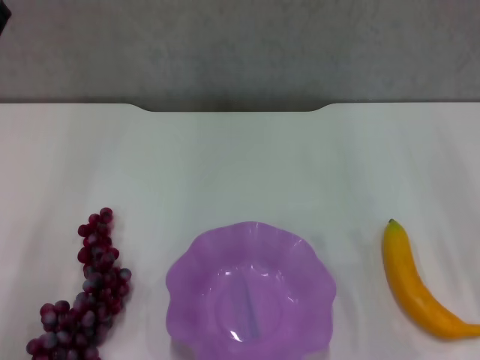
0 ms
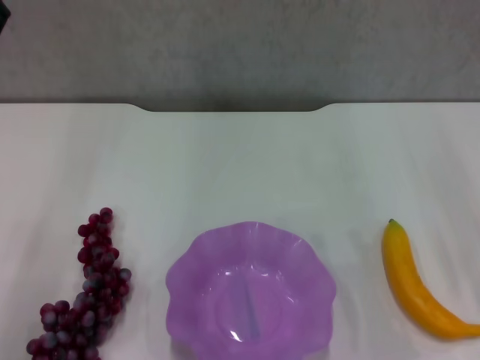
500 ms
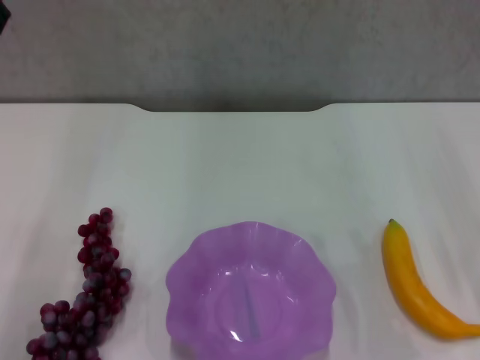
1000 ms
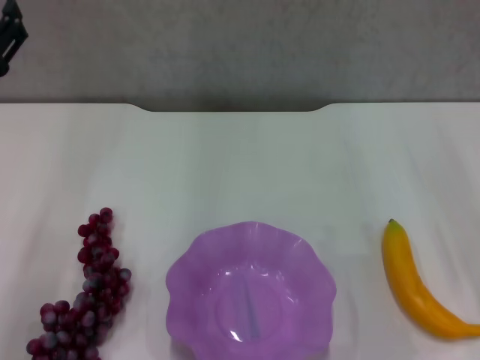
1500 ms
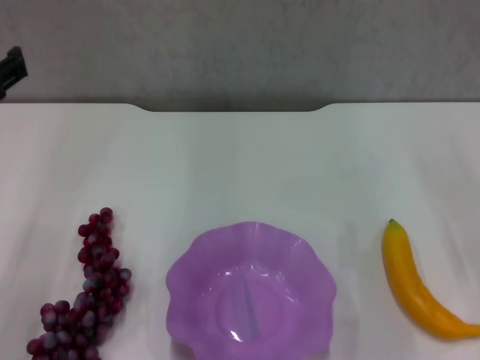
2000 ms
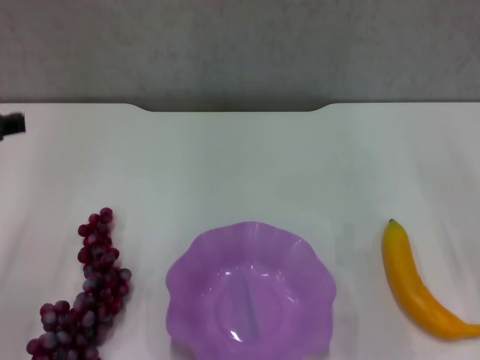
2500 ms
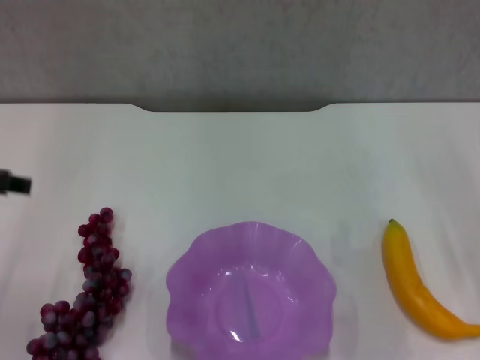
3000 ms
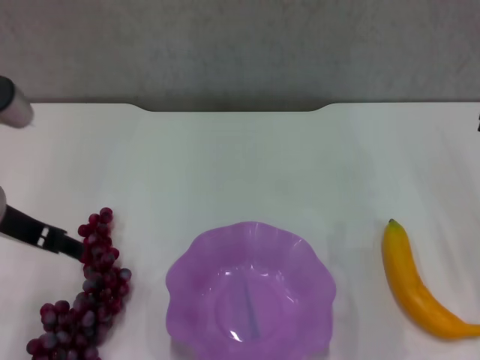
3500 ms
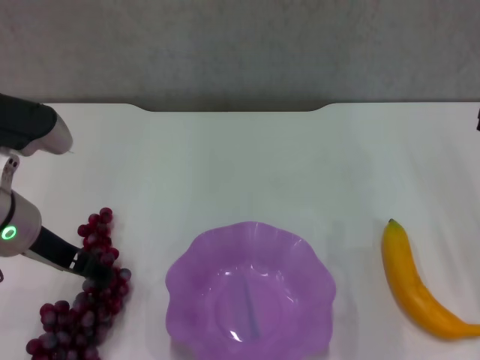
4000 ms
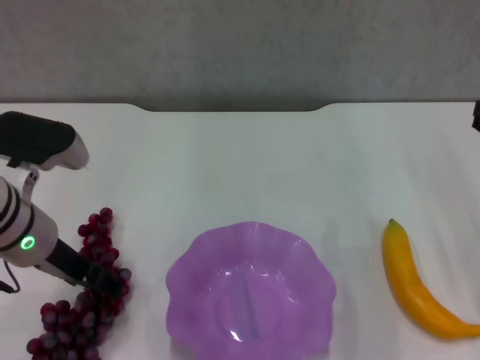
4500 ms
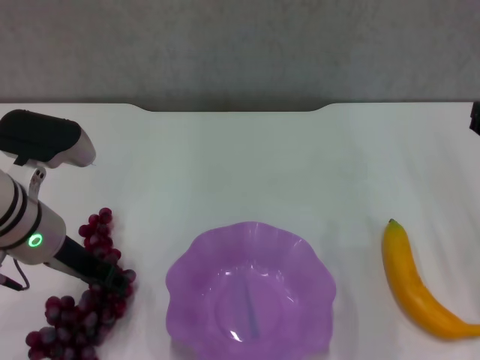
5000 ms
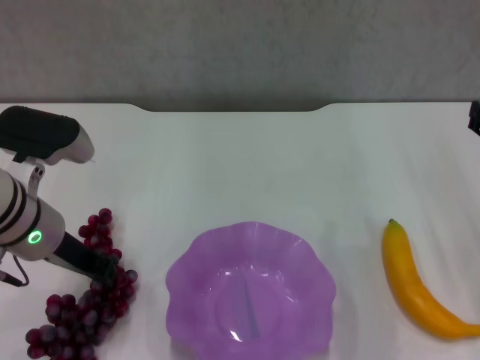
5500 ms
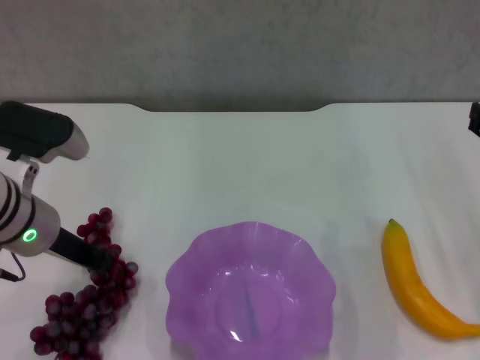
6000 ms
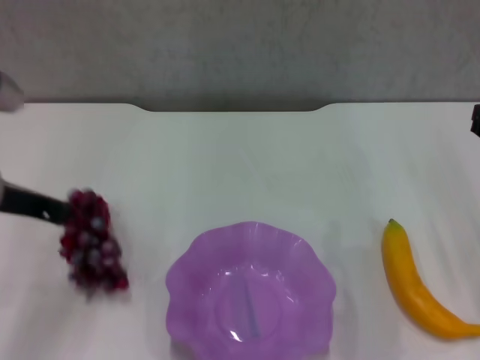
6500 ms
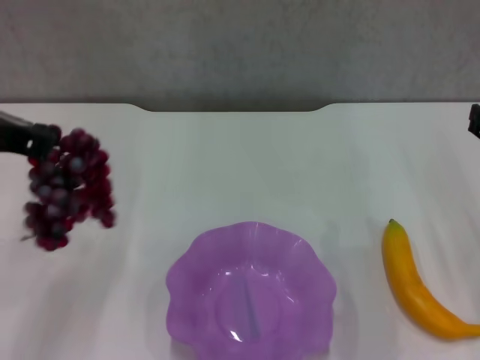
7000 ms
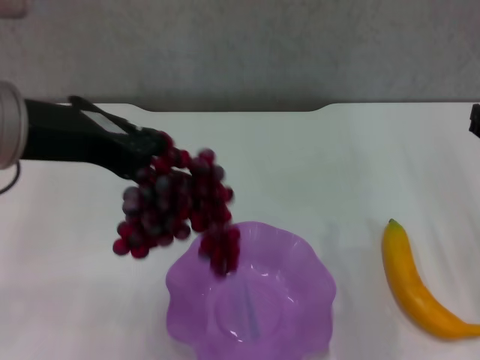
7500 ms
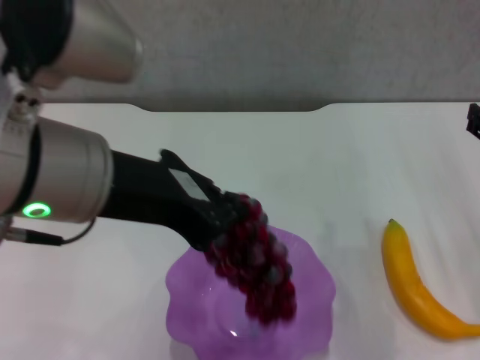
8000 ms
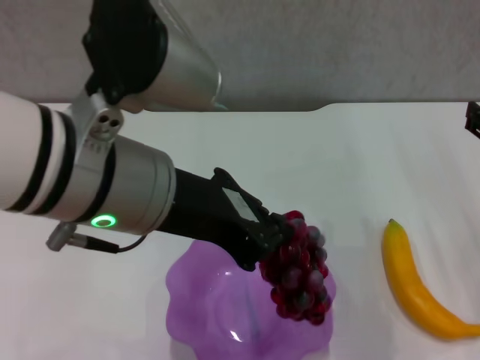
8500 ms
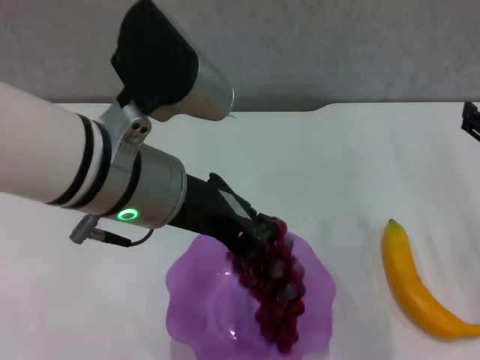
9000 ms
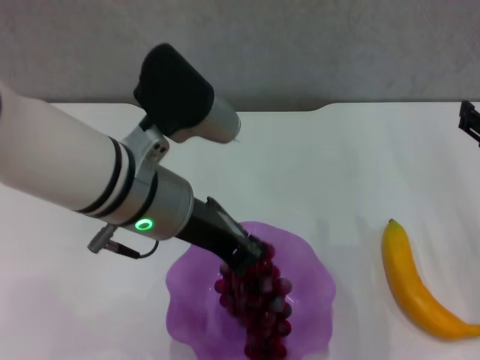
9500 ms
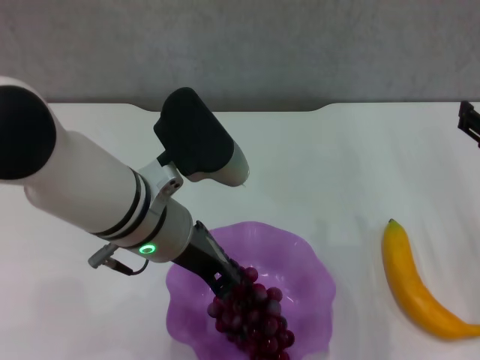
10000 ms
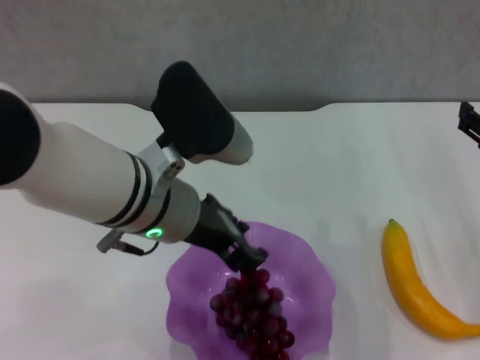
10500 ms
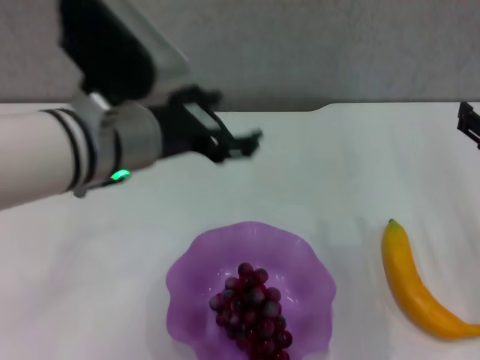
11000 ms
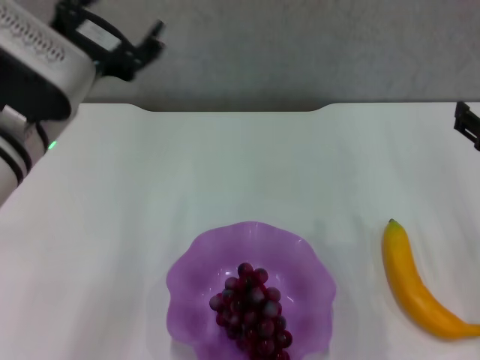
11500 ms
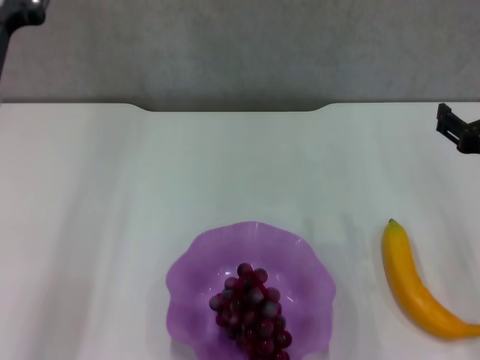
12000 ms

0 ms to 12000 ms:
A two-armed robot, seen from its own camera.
Step, 1500 ms to 5500 ms: Grasp the grape with left gripper.
Step, 6000 ms to 10500 ms: Place the grape in the purple plate with left gripper.
2000 ms to 4000 ms: The left gripper shifts roughly 5 cm downward.
4000 ms to 6000 ms: The left gripper closes up.
6000 ms to 8000 ms: The left gripper shifts approximately 20 cm upward, backward and to the right.
8000 ms to 10000 ms: The left gripper travels downward and forward by approximately 15 cm.
10000 ms to 12000 ms: The left gripper travels to the left by roughly 10 cm, and opens its fingers.

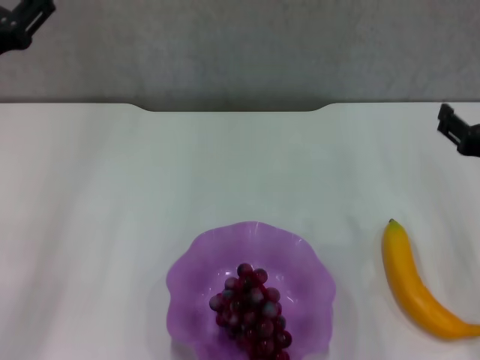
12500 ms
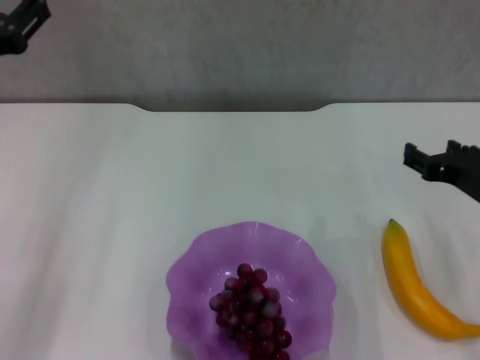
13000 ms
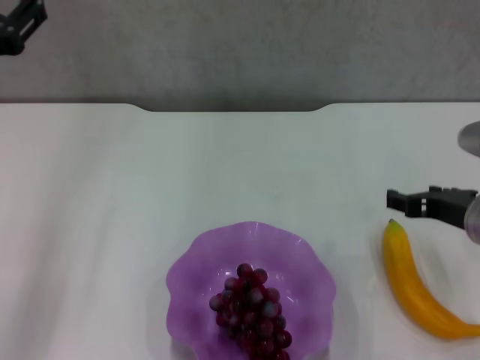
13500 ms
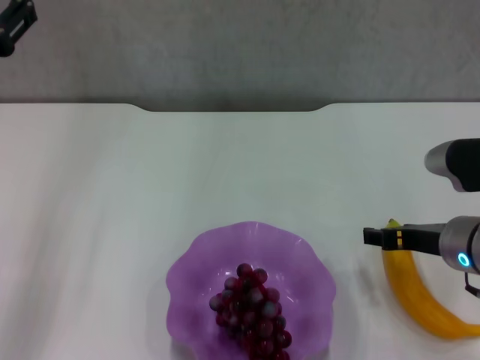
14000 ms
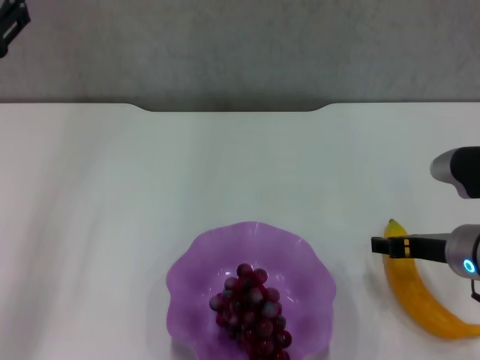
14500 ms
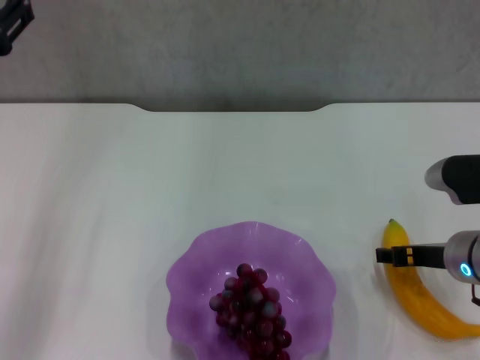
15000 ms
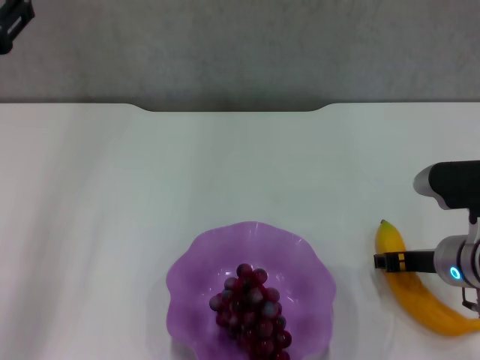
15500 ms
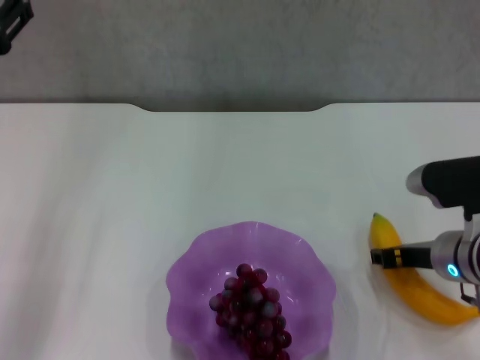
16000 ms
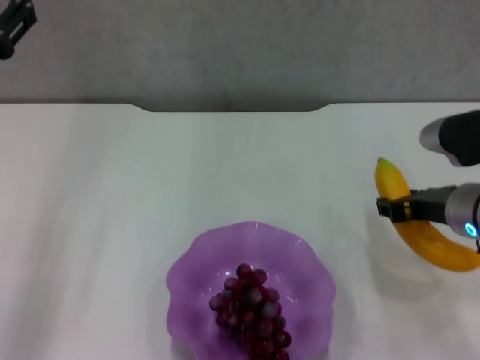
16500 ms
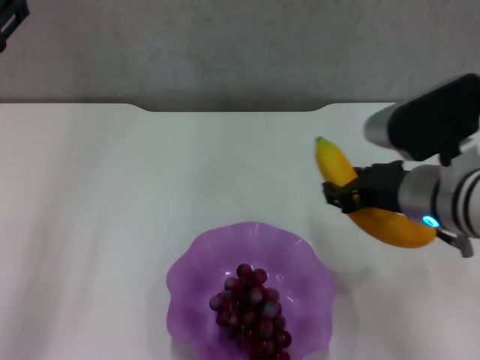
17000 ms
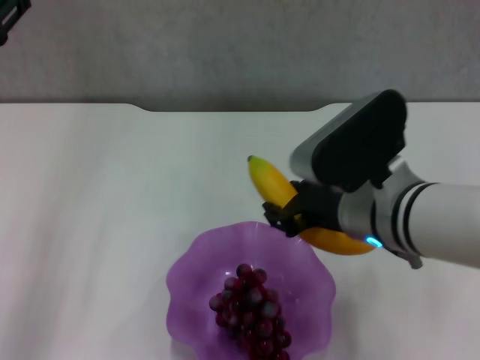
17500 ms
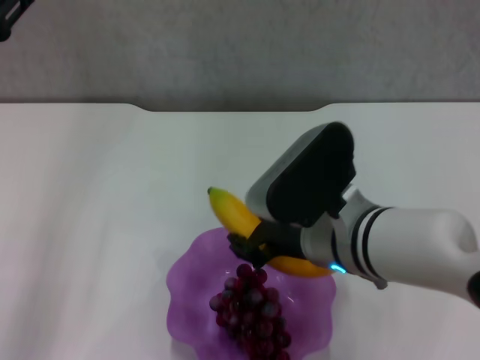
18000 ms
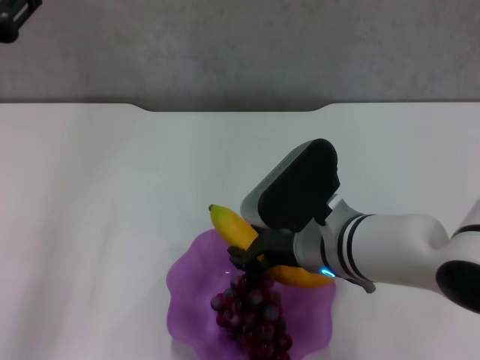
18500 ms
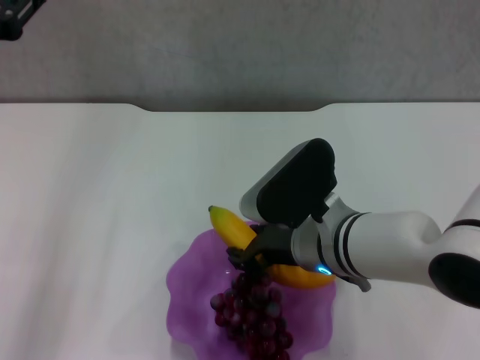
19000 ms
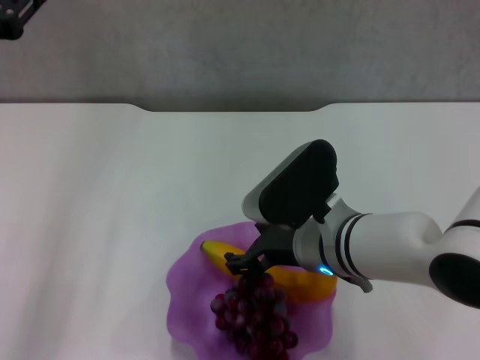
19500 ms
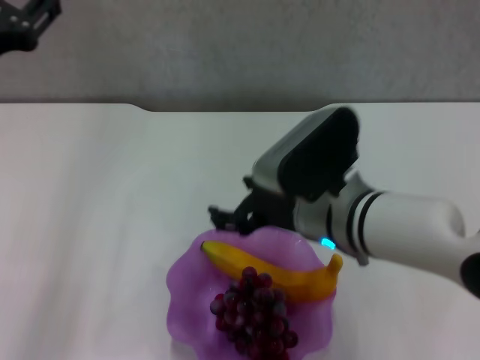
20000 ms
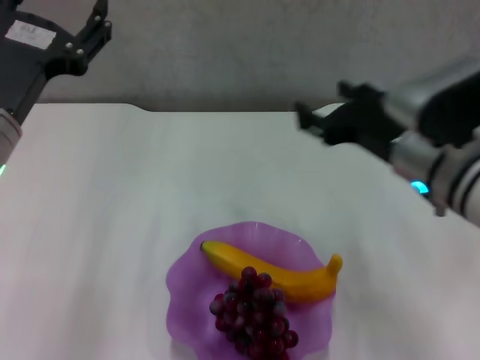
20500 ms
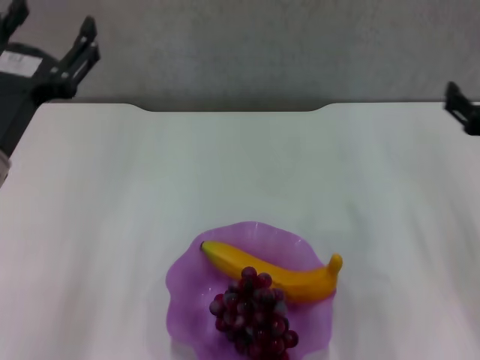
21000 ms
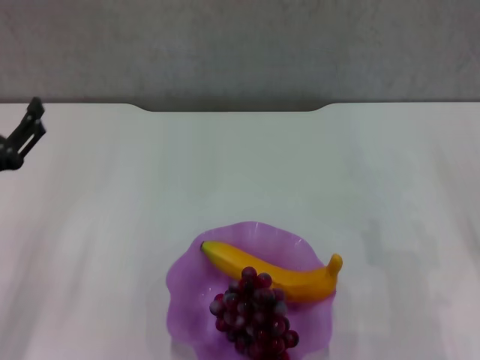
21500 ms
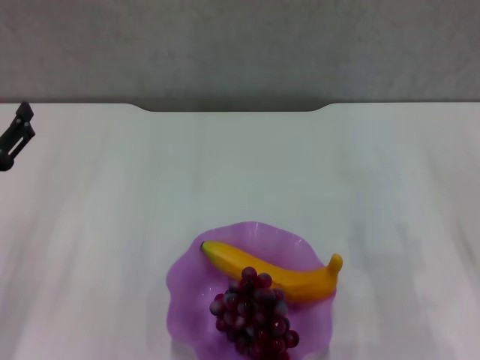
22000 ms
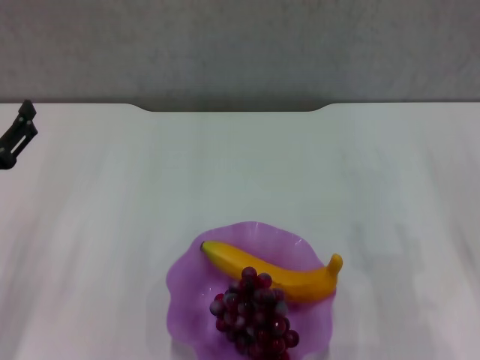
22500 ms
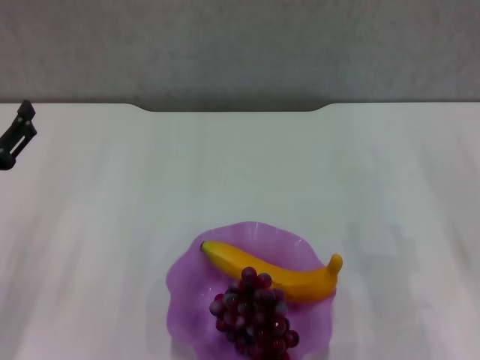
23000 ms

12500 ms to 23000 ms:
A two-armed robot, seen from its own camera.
Step, 12500 ms to 15500 ms: Grasp the banana with right gripper.
Step, 16000 ms to 19500 ms: Place the banana in the purple plate with right gripper.
12500 ms to 14500 ms: The right gripper changes place by about 5 cm.
14500 ms to 16500 ms: The right gripper closes its fingers.
16500 ms to 19000 ms: The right gripper shifts roughly 15 cm to the left.
19000 ms to 21000 ms: The left gripper is displaced downward by about 5 cm. The right gripper moves to the right, roughly 20 cm, and opens up.
21000 ms to 23000 ms: The left gripper goes some 10 cm to the left and downward. Meanwhile the right gripper ends up some 5 cm from where it was.

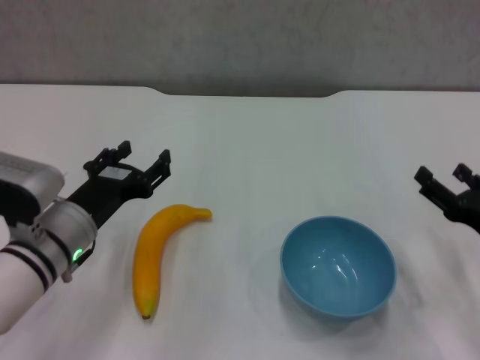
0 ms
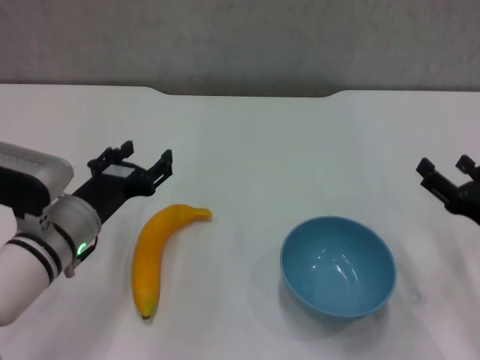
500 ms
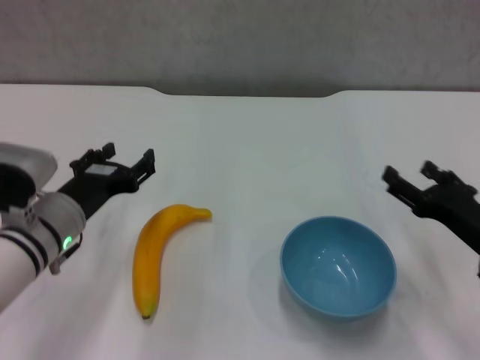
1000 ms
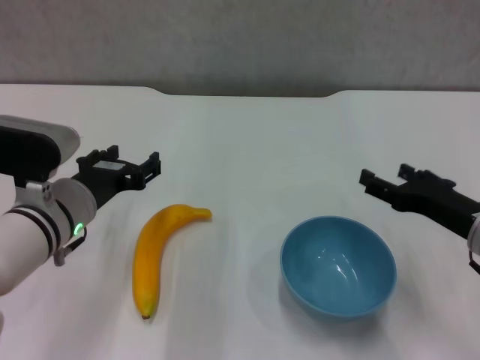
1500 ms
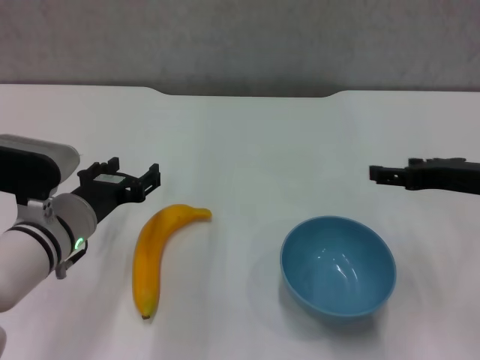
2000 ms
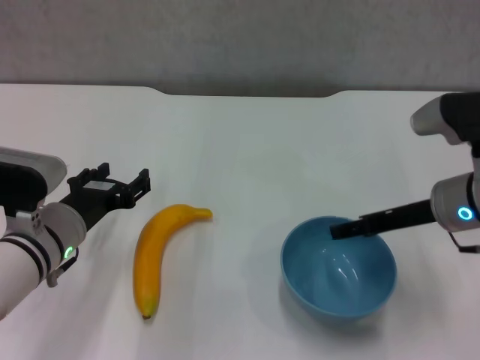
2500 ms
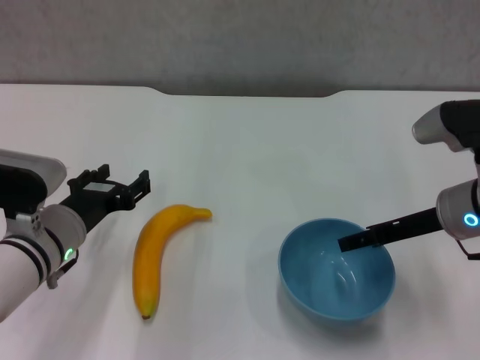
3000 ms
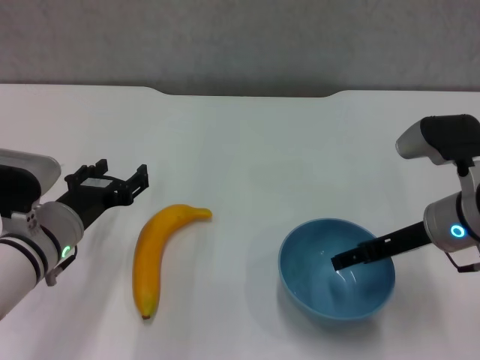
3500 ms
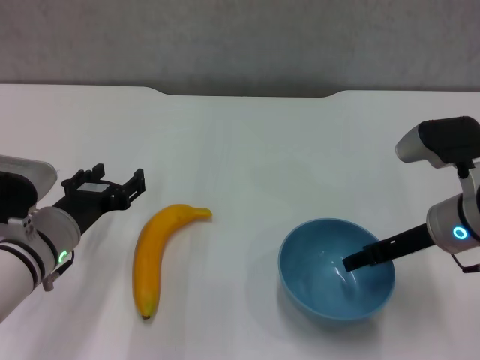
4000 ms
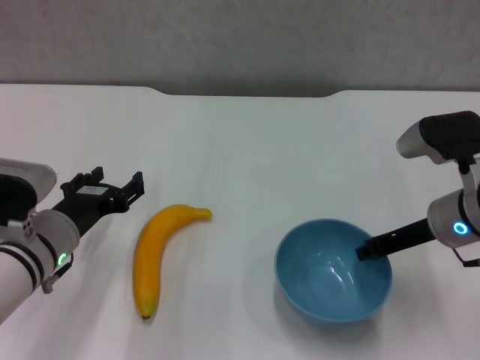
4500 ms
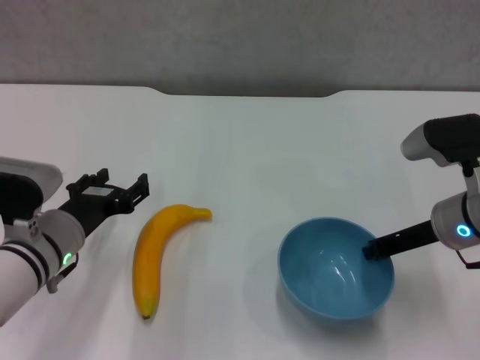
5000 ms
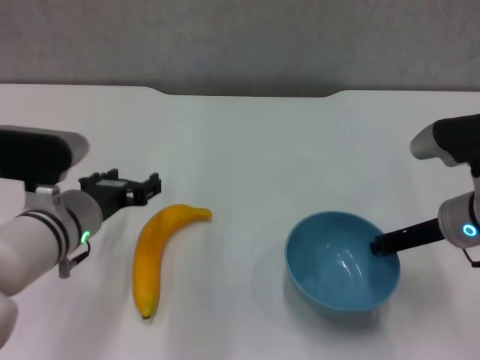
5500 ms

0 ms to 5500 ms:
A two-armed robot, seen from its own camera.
Step, 0 ms to 4500 ms: Grasp the blue bowl with right gripper.
0 ms to 2000 ms: The right gripper is displaced upward and forward by some 10 cm.
2000 ms to 3500 ms: The right gripper moves about 5 cm.
3500 ms to 5500 ms: The right gripper closes its fingers.
